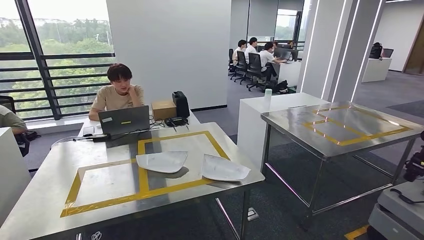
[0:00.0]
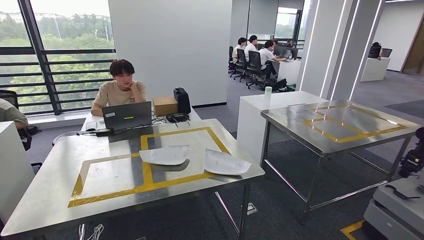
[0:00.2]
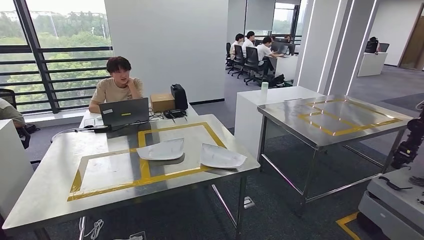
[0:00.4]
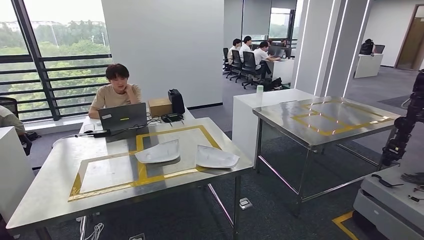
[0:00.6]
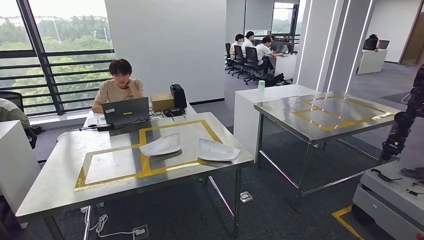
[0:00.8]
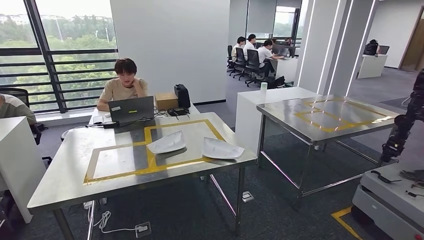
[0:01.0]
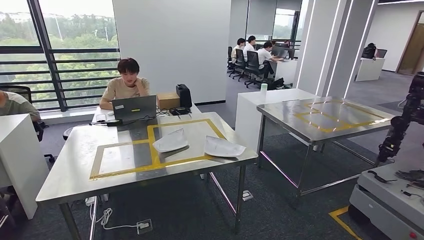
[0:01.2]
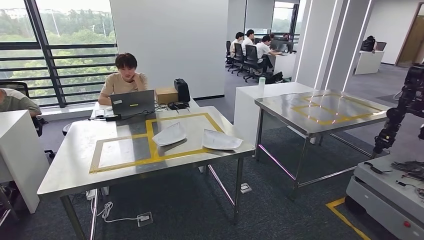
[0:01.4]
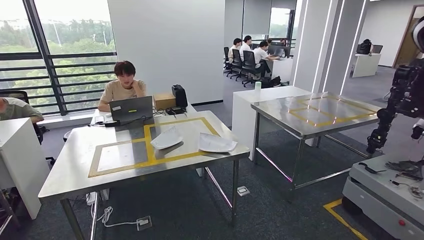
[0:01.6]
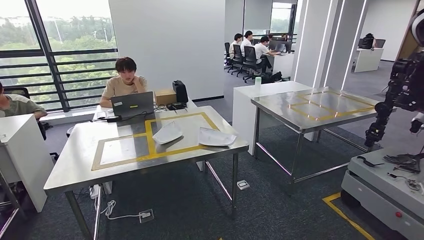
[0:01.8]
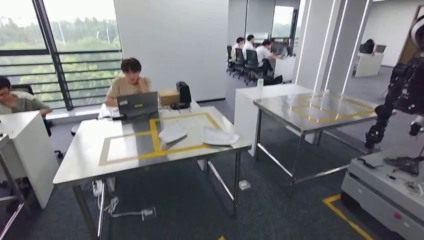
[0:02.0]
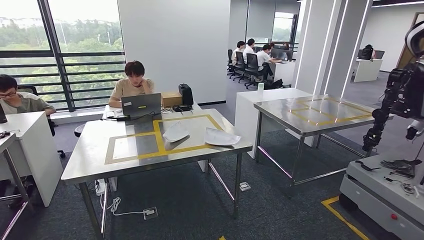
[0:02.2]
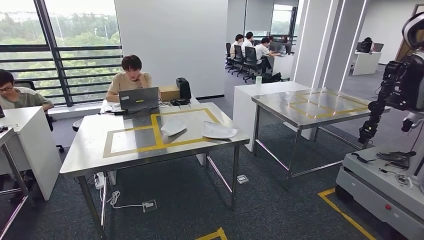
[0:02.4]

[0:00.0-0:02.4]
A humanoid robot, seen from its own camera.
Step, 0:00.0 to 0:02.4: Return to the initial position at the workbench.
